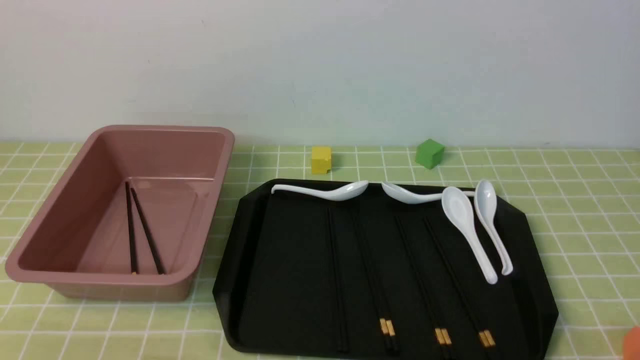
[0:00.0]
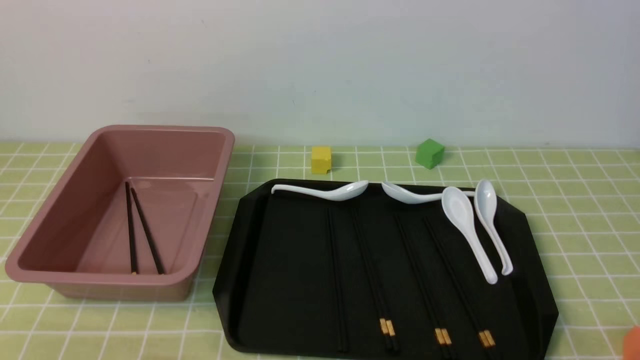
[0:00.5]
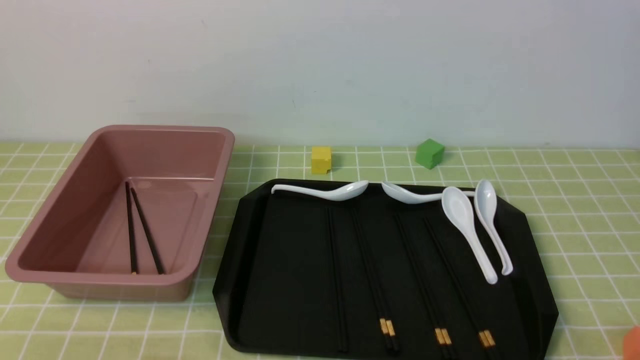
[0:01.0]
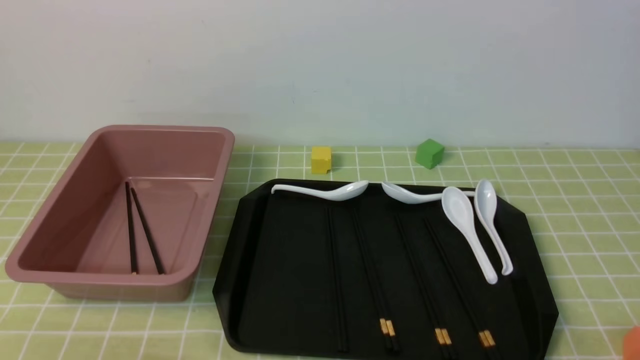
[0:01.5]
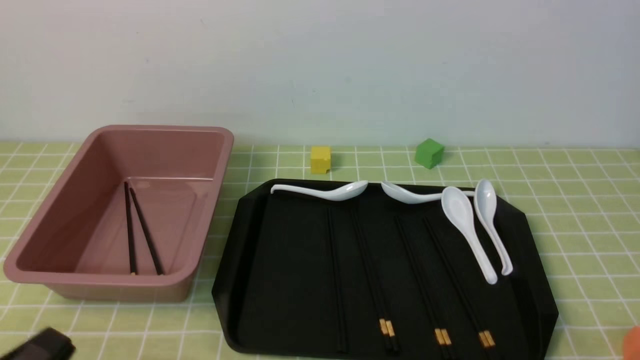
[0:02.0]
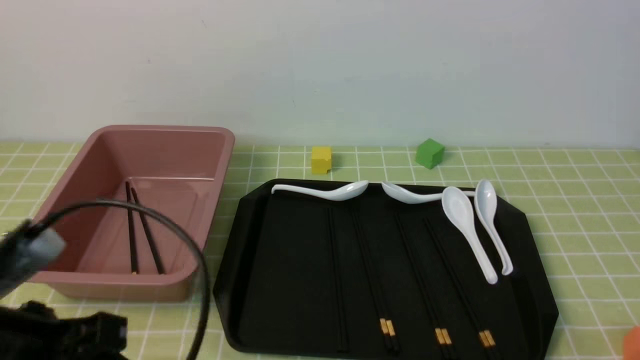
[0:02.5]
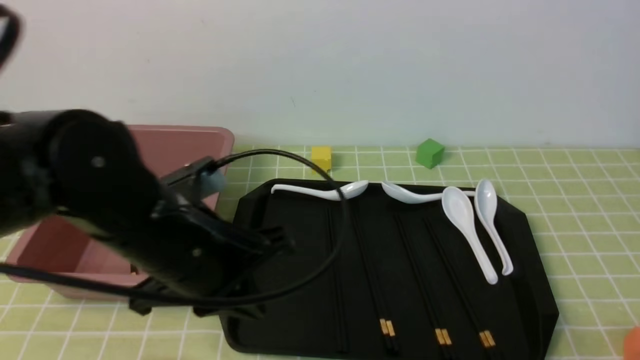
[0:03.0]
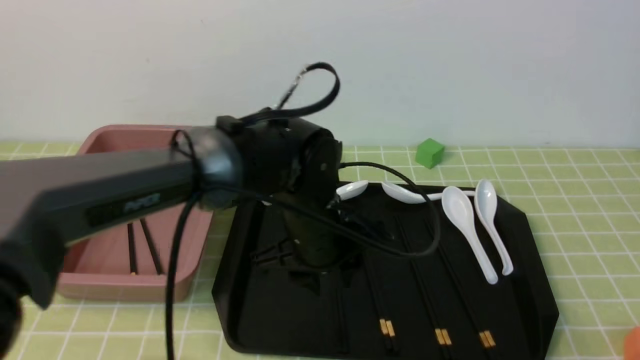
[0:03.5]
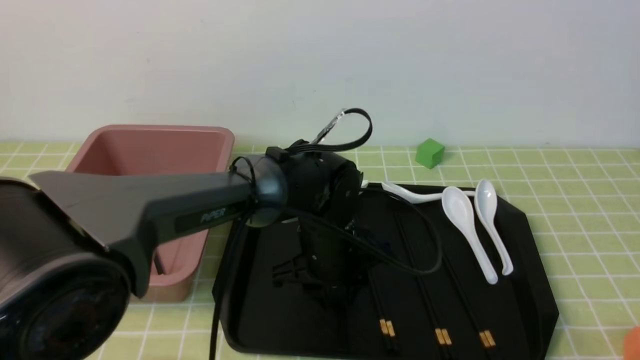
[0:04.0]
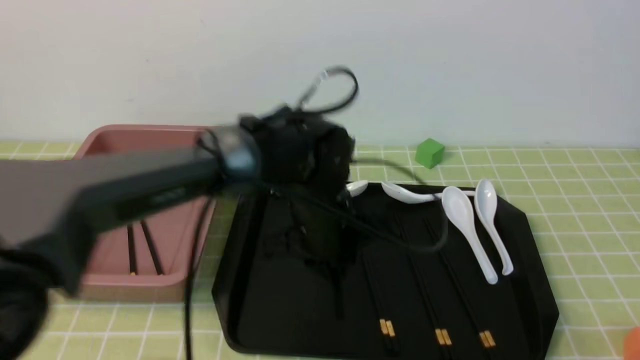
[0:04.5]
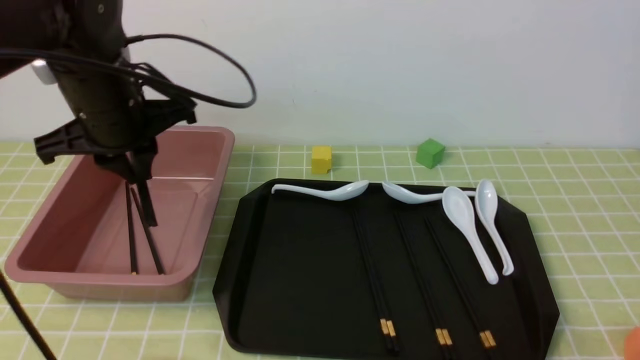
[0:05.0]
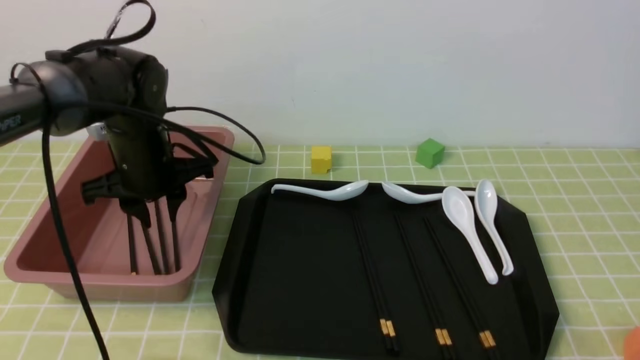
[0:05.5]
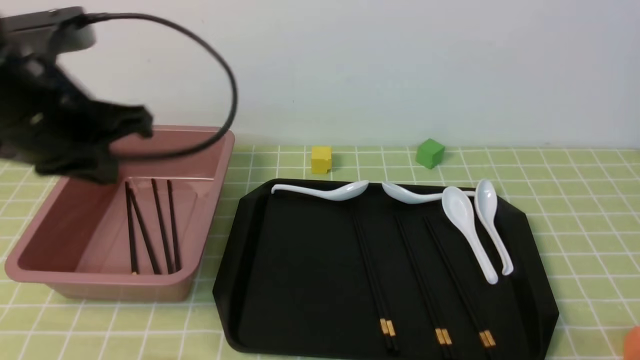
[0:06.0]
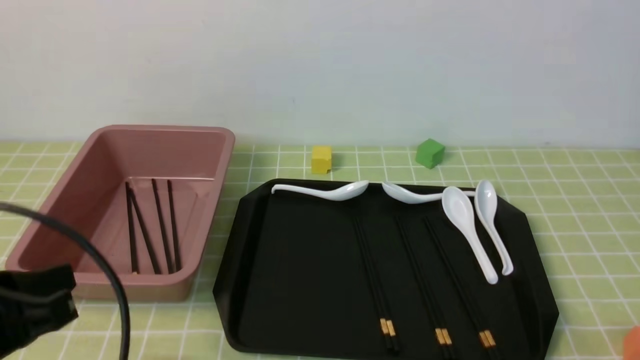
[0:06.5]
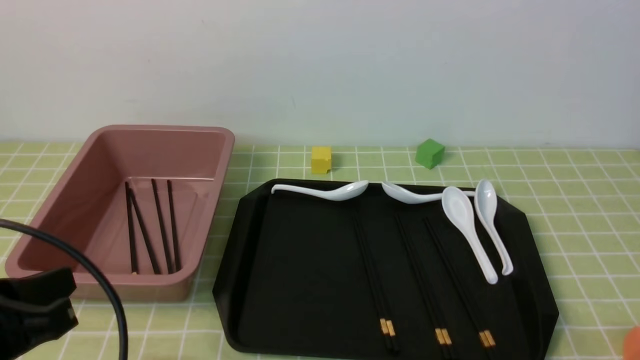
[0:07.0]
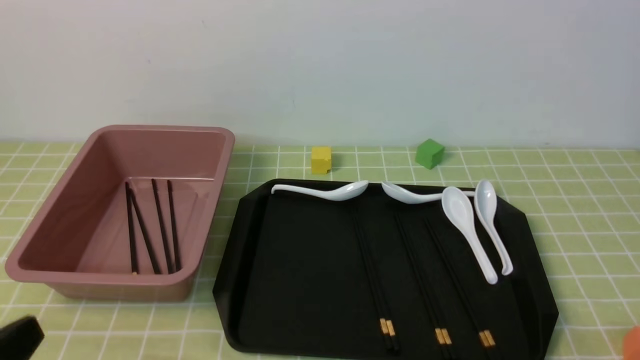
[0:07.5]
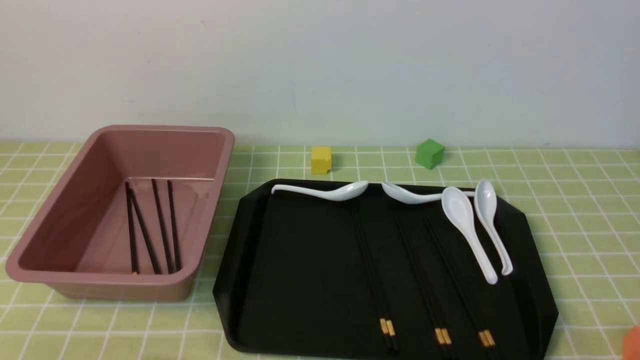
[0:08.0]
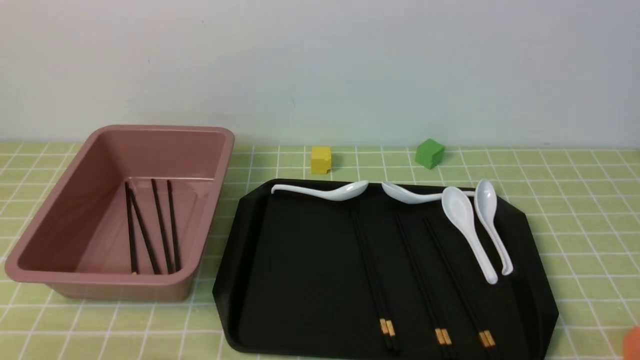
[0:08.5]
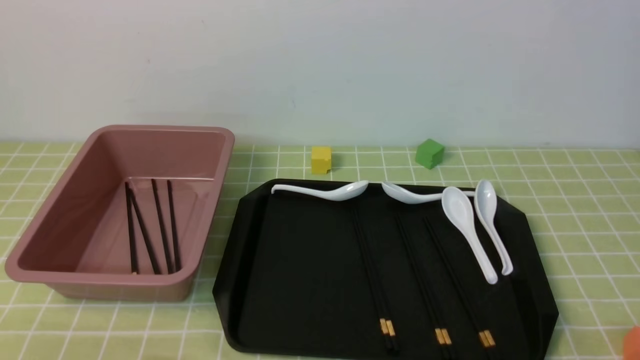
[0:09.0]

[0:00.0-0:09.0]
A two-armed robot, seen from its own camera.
Step, 0:00.0 to 0:04.5: use the left arm to grab a pair of chopsticks.
Step, 0:05.0 to 0:05.5: use the left arm to put the chopsticks into the lunch box.
0:02.0 to 0:04.5: The left gripper travels forward and to the right by approximately 40 cm, and opens and closes again.
0:04.5 to 0:07.0: The left gripper heads to the left and backward, covering some 35 cm, and closes up.
0:07.0 to 0:09.0: The left gripper shifts roughly 10 cm downward and backward.
